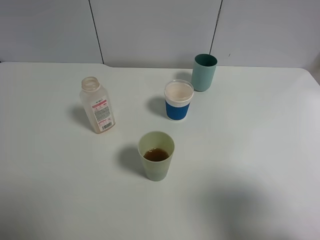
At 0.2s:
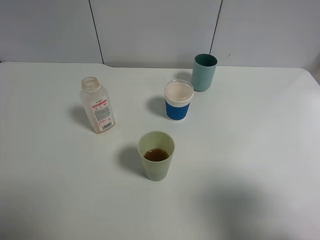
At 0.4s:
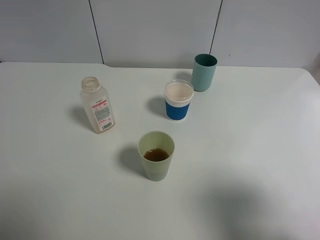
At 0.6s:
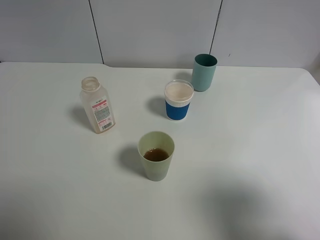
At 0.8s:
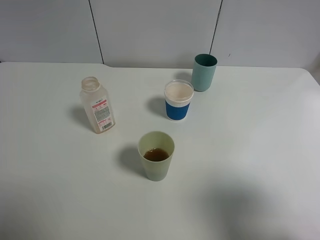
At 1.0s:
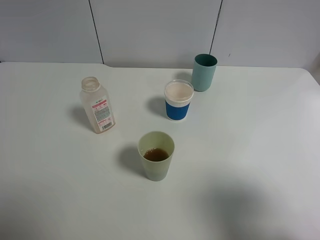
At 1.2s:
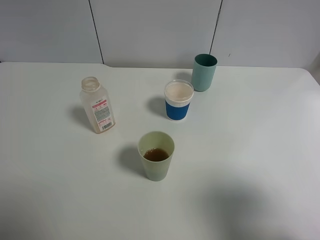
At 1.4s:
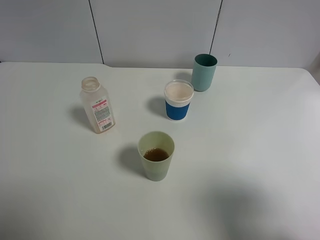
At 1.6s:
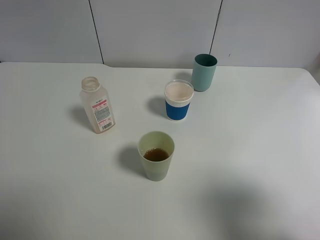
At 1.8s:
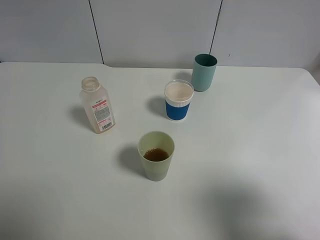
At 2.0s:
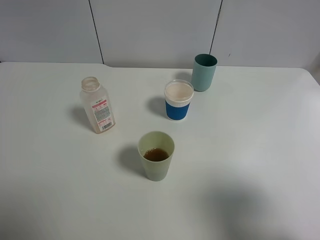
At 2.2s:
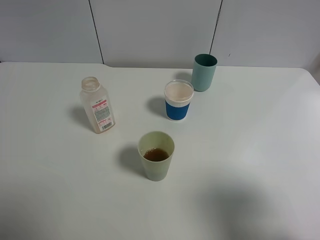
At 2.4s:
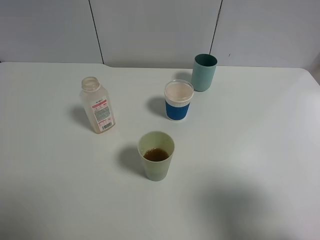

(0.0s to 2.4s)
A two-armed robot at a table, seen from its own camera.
Task of the whole recording: use a gripper to hold the bottle of the drink and pour it into a random cup.
1.2s - 2.4s: Neither gripper changes place.

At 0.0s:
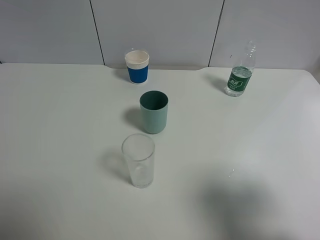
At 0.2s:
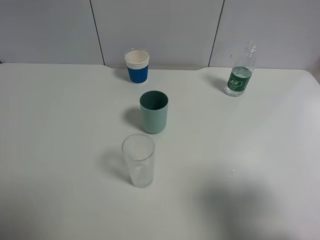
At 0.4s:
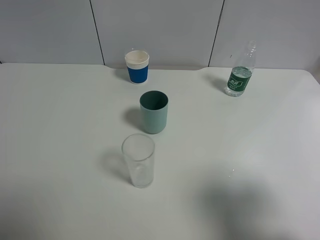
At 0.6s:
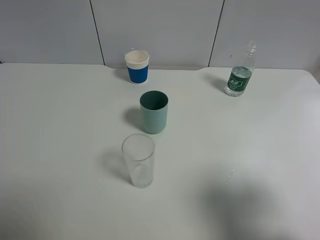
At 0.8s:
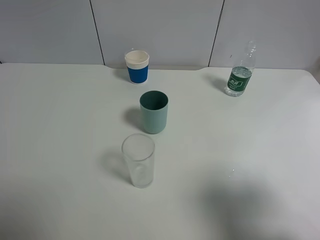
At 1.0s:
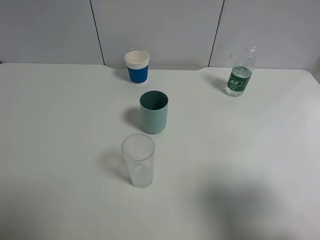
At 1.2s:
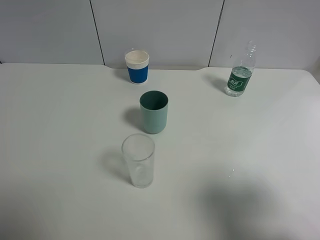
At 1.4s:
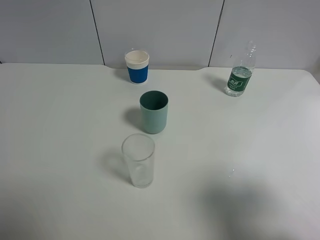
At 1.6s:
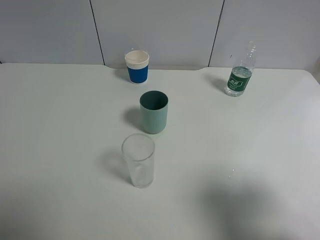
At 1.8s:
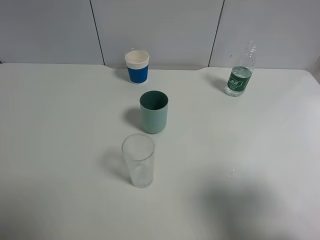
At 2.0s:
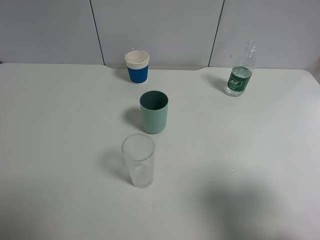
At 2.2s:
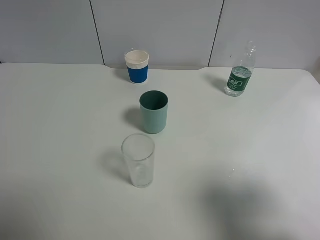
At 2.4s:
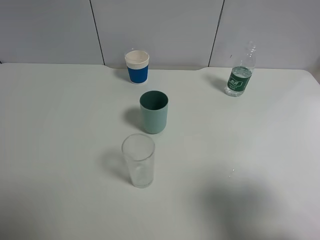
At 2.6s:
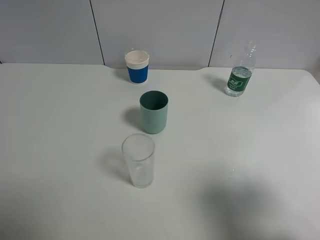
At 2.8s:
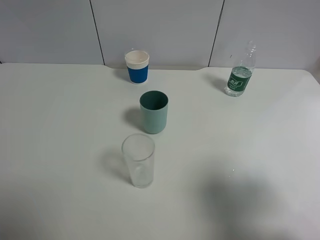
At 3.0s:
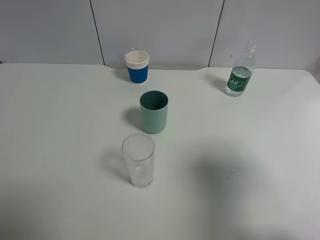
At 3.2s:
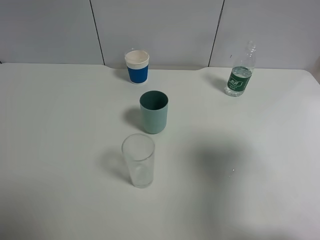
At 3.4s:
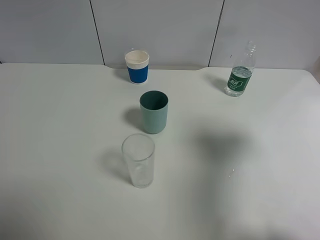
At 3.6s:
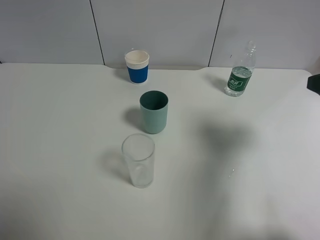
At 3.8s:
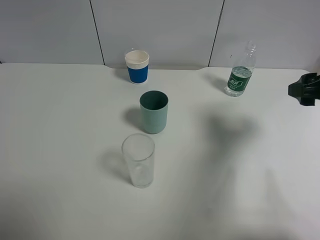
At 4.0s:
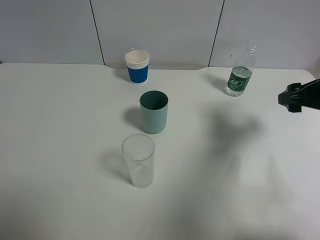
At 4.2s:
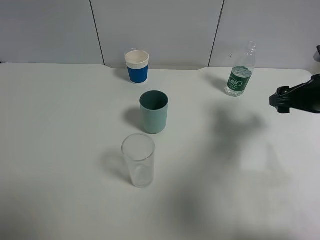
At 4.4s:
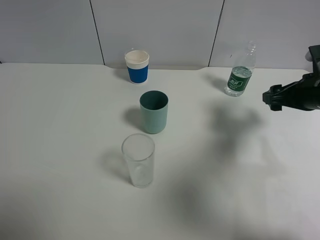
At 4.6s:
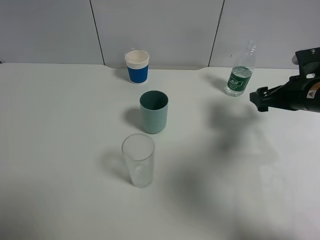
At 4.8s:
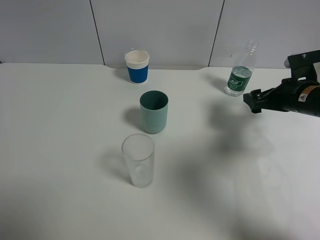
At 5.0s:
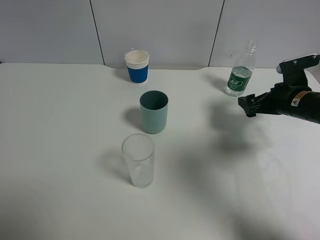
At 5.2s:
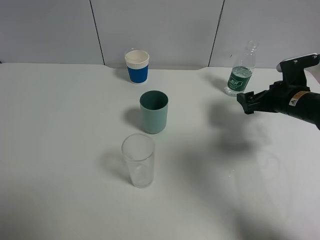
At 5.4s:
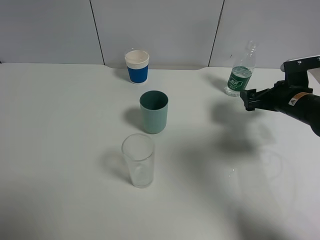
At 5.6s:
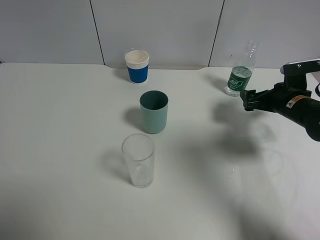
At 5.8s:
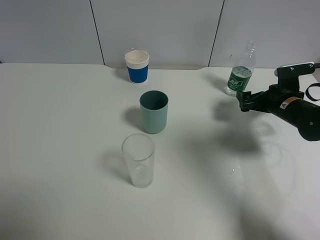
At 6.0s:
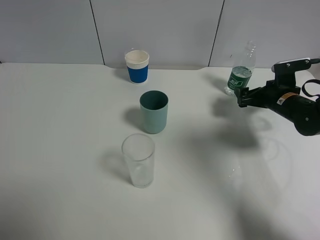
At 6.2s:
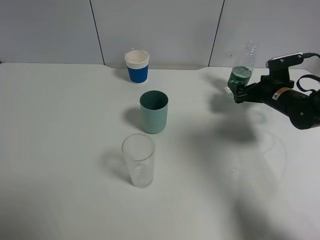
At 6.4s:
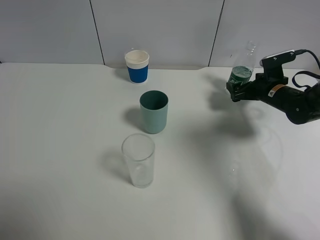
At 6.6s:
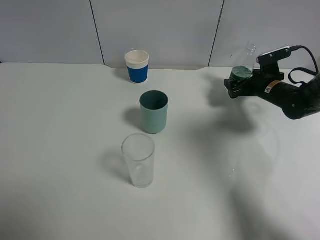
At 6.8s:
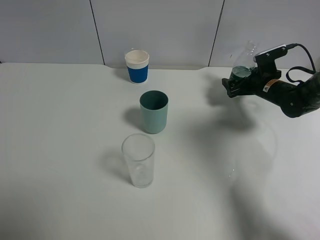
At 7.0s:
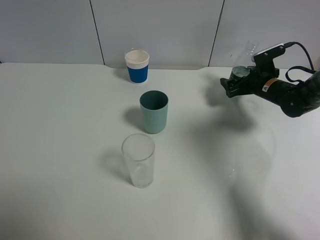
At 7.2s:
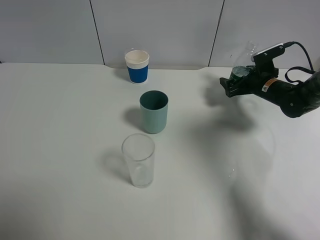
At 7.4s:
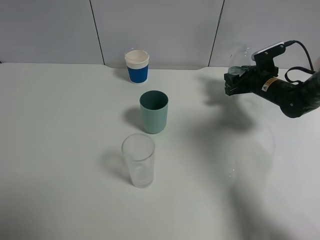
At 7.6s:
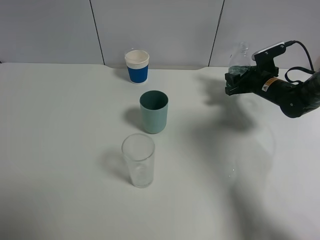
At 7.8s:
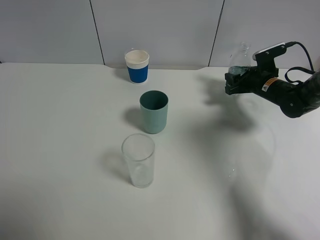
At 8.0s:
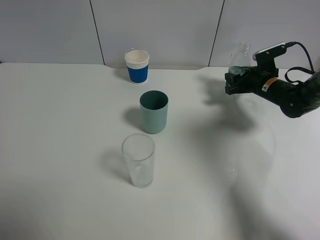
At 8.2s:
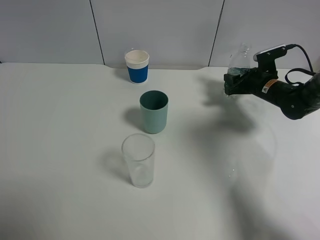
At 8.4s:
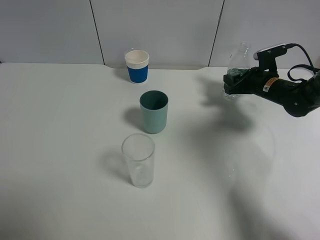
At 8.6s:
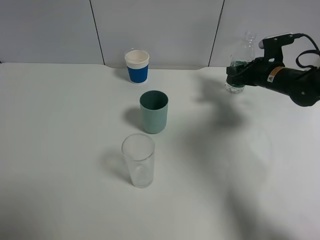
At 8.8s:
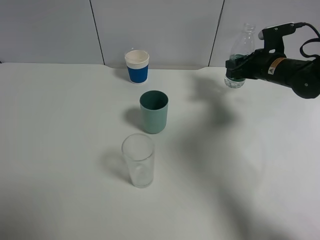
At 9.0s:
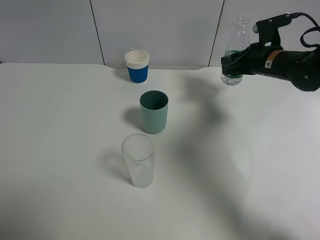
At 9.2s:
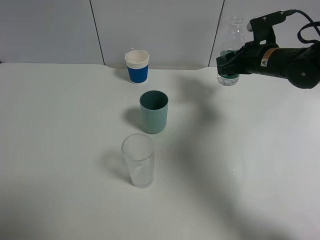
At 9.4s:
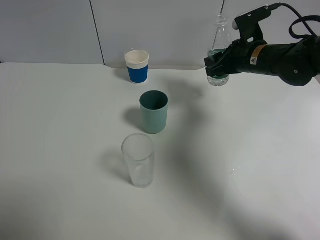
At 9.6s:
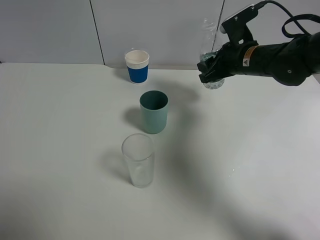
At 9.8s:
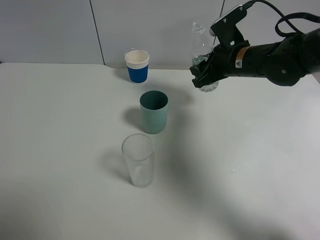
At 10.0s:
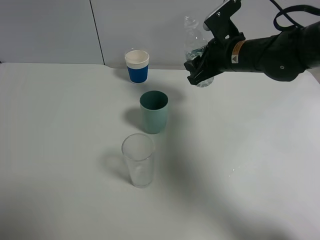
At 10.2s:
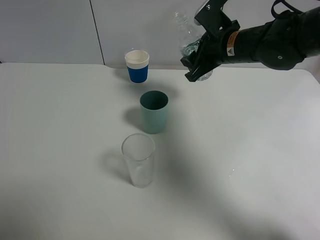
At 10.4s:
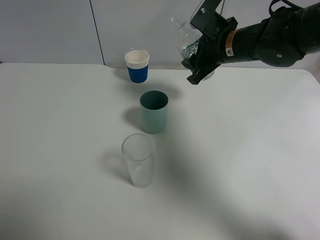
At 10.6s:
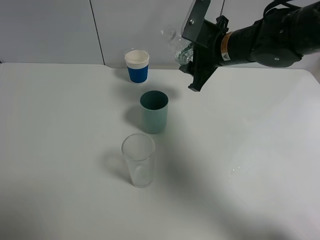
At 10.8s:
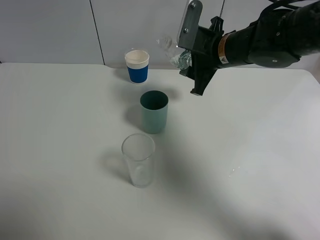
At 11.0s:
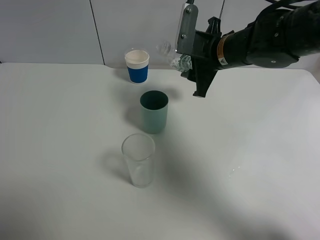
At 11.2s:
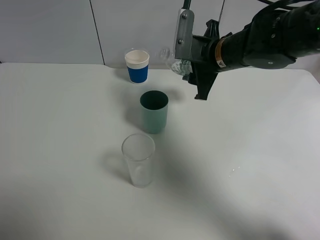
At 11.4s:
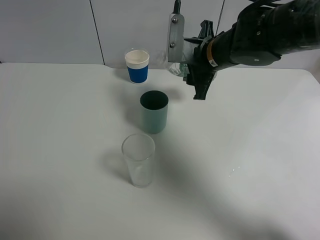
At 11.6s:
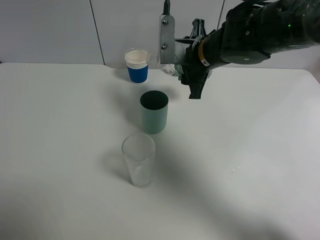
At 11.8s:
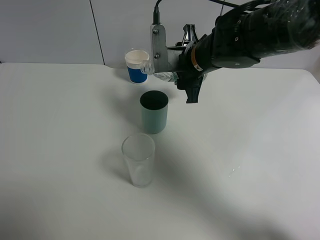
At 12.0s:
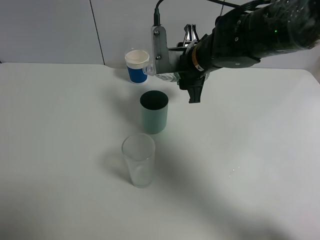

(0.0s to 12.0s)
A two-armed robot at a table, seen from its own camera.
Task of the whole recording: use a gripper to hold the bottle of the drink and pour it into a random cup.
Step, 0.0s - 7.6s: Grasp the mineral water bottle with the right gripper.
0.0s - 1.6s: Neither gripper changes place.
1.6s - 3.0s: The right gripper heads forward, covering approximately 5 cm.
3.0s - 4.4s: The right gripper shifts about 25 cm forward and downward.
4.4s - 6.0s: The right gripper moves downward and forward, some 10 cm, and opens.
6.0s - 7.6s: The right gripper goes roughly 5 cm forward, and closes.
7.6s - 9.0s: The right gripper moves upward, some 10 cm.
9.0s - 10.4s: The right gripper is displaced to the left and upward by roughly 15 cm.
10.4s - 12.0s: The right gripper moves to the left, some 5 cm.

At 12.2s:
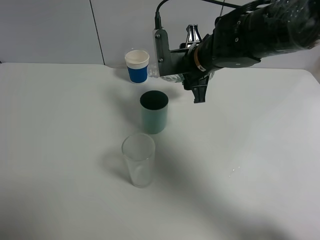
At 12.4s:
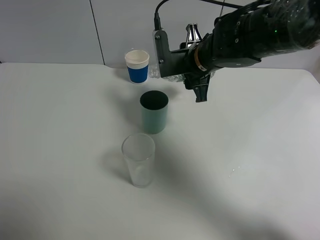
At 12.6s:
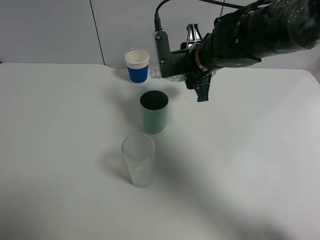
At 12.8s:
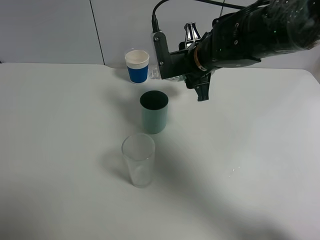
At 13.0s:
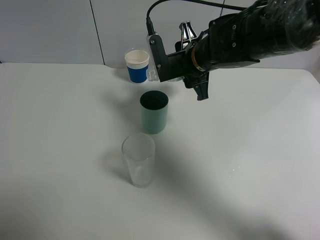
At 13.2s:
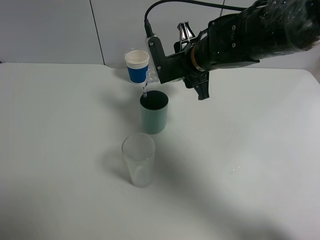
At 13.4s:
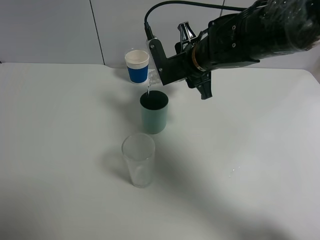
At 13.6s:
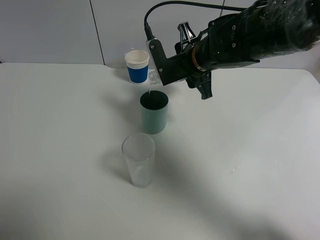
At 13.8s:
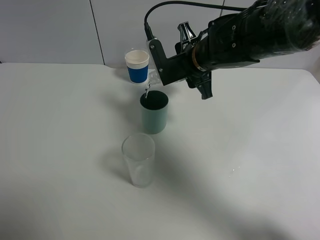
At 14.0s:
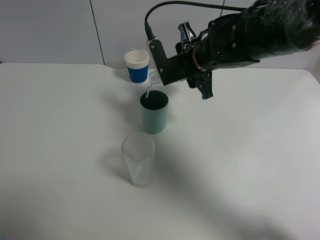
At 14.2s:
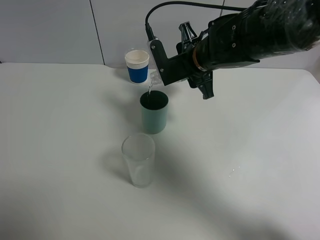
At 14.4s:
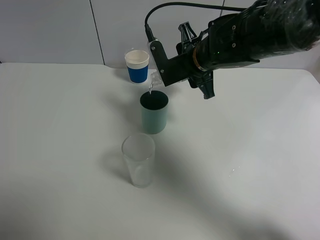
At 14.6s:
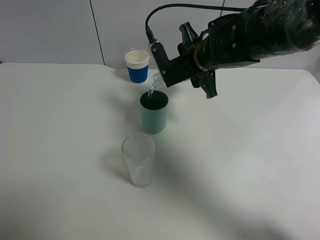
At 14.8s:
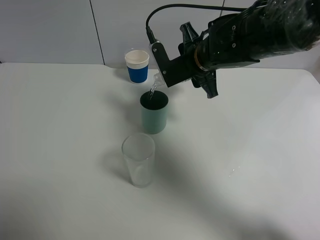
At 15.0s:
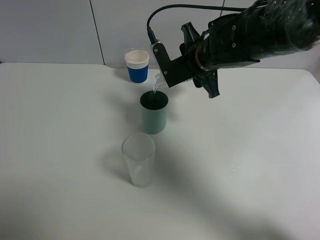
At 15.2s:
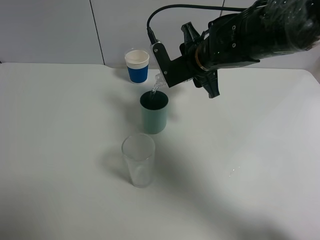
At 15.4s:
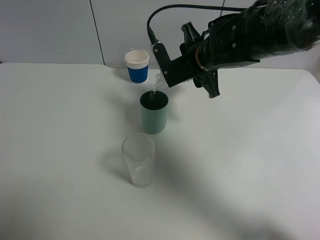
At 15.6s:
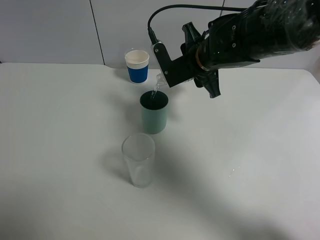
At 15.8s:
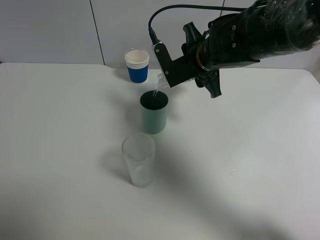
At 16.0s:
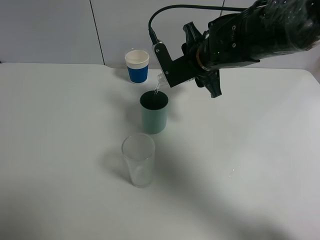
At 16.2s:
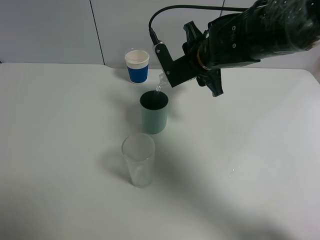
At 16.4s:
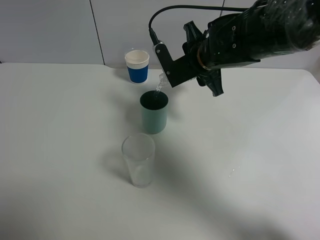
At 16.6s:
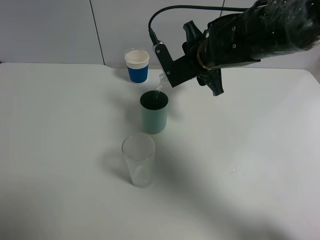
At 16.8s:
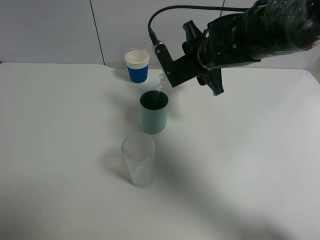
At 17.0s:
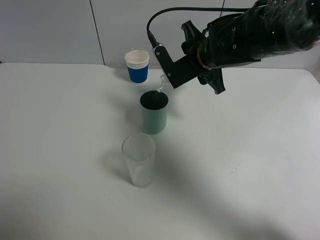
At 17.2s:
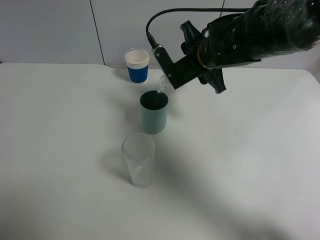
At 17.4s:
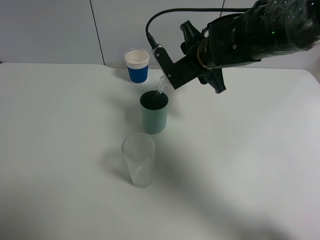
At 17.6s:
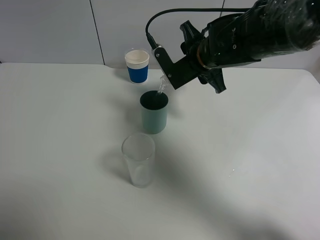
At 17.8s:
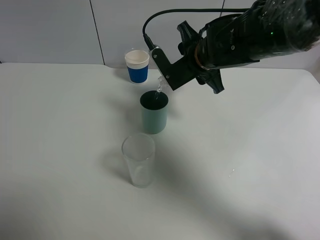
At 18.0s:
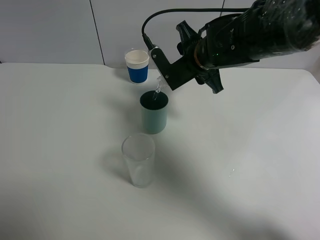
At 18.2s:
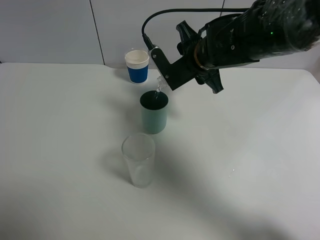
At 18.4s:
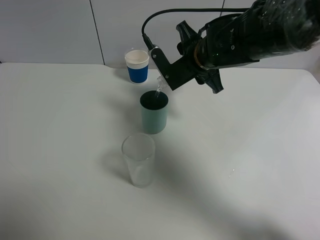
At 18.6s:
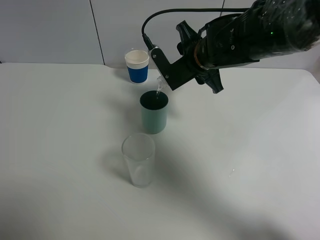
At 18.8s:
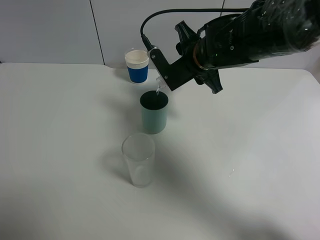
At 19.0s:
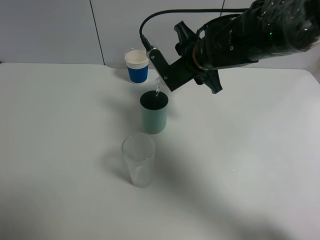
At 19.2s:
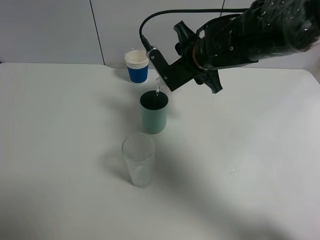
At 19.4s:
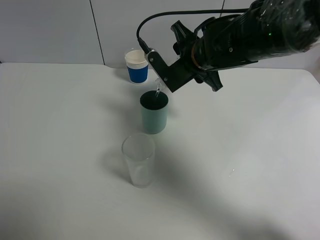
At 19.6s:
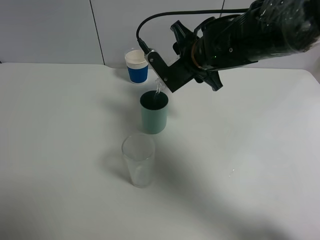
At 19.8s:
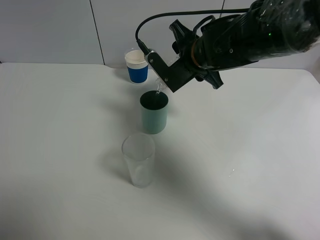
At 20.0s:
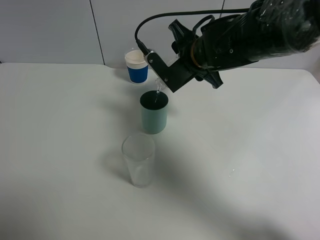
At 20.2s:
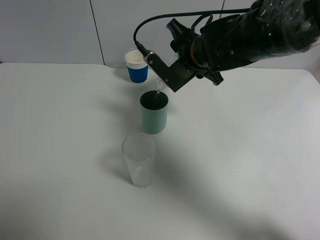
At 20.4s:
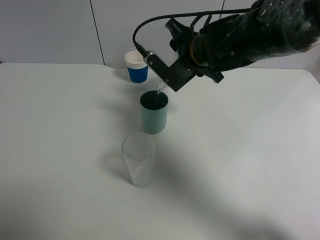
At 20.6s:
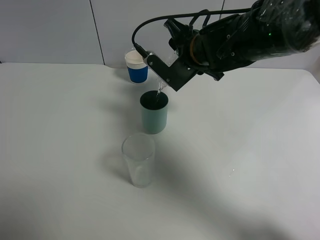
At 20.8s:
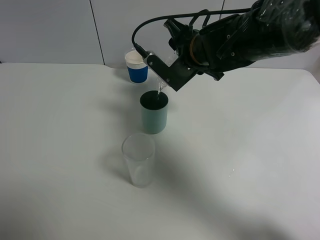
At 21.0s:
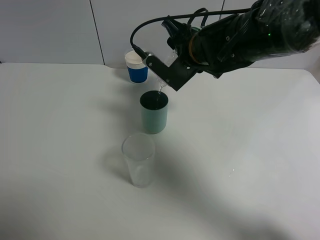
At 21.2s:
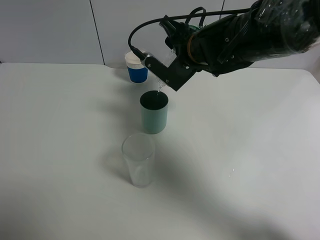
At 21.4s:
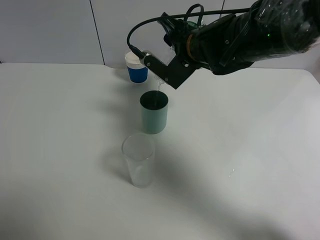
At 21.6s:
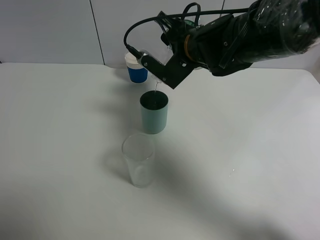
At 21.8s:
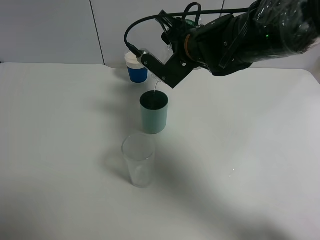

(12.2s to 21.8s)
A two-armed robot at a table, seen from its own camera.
Task of the whole recording: use a gripper to hold the bottle of the drink and pour it into a random cup.
12.2s - 15.4s: There are only small adjustments of the grippers.
15.4s - 17.0s: There are only small adjustments of the grippers.
17.0s - 18.6s: The two grippers keep their place.
18.6s - 20.2s: The grippers stay close to where they were, moving slightly.
20.2s - 21.8s: The grippers make only small movements.
